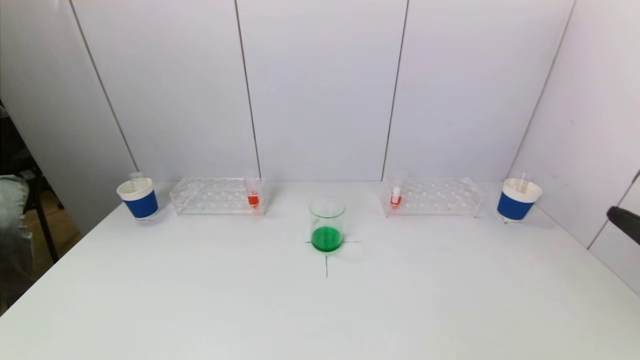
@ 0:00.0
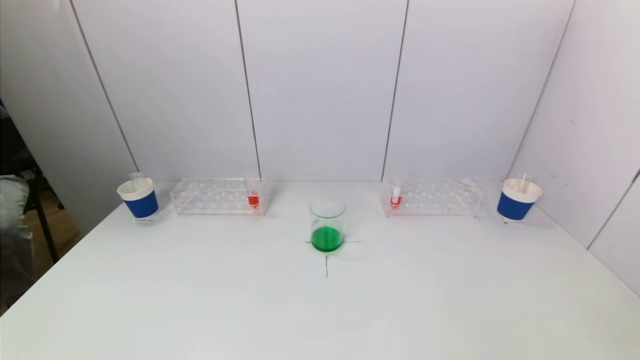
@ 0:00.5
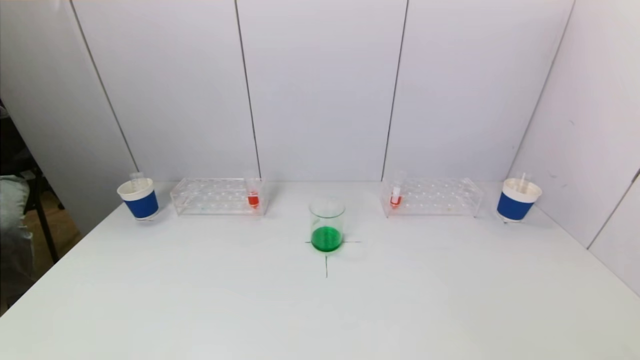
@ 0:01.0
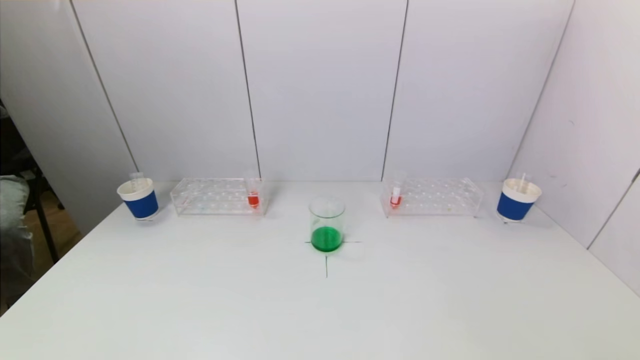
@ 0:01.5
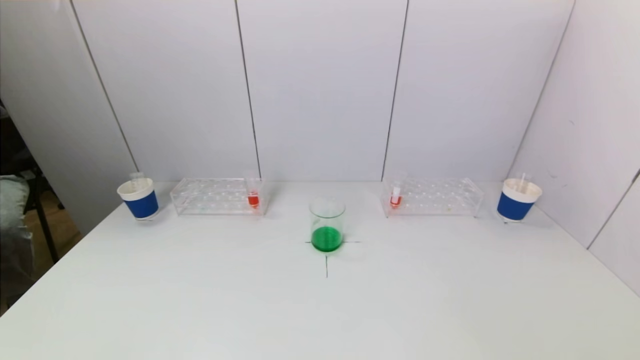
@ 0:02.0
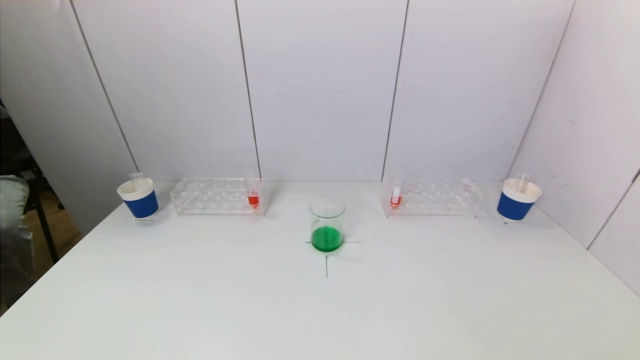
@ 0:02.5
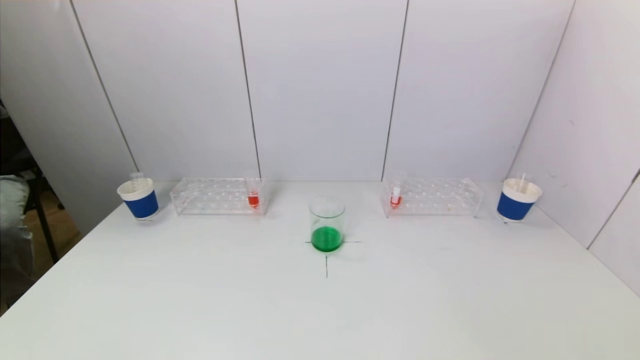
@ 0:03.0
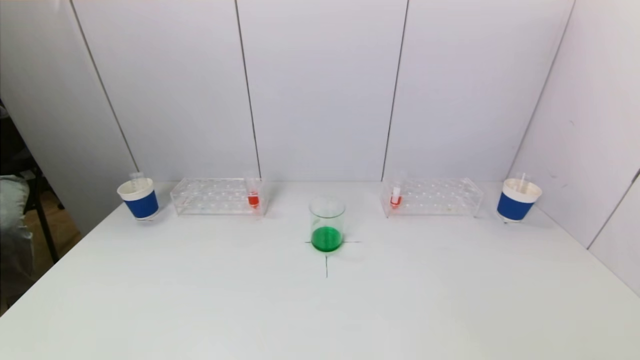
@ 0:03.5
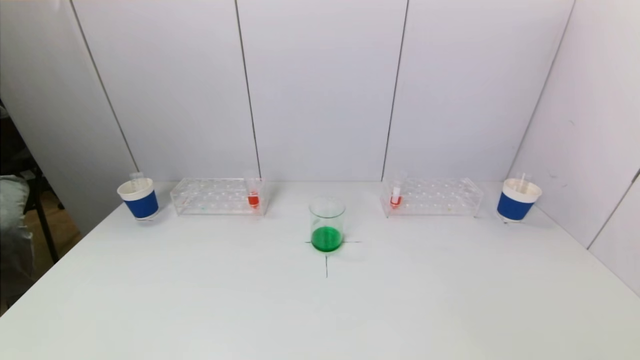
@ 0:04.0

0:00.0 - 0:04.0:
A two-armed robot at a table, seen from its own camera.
Task of the whole recording: pick up a test tube with pigment on left test tube rack and a test tube with pigment on right test tube rack by grippers and pour them into the beaker.
0:00.0 - 0:02.0: The right gripper shifts about 20 cm downward and backward.
0:02.0 - 0:04.0: Both grippers stay put.
